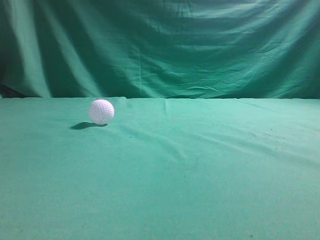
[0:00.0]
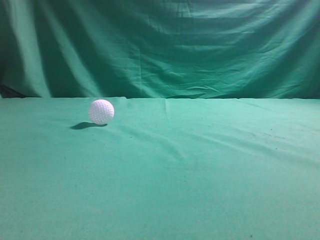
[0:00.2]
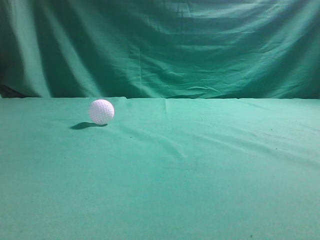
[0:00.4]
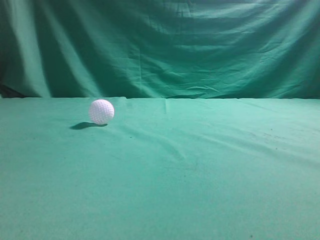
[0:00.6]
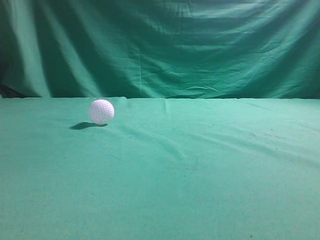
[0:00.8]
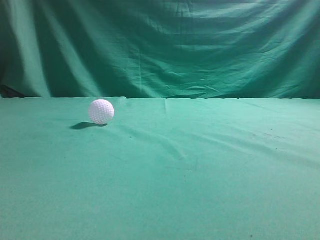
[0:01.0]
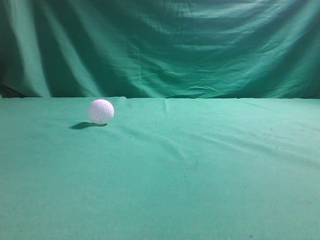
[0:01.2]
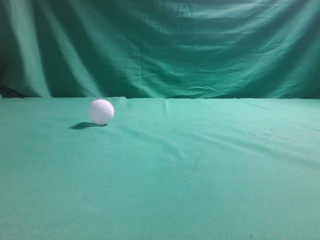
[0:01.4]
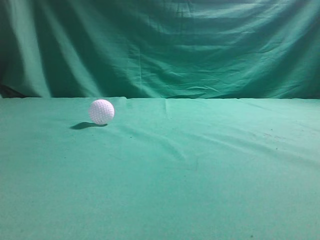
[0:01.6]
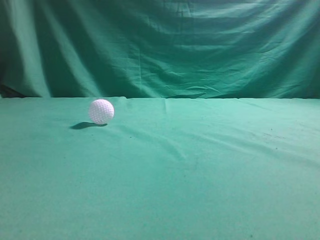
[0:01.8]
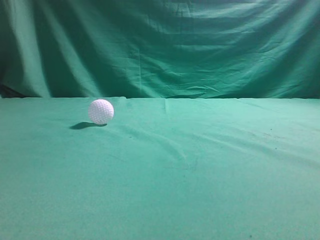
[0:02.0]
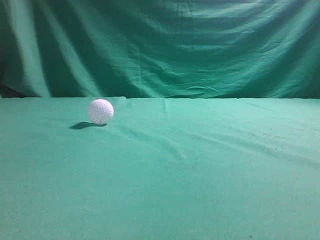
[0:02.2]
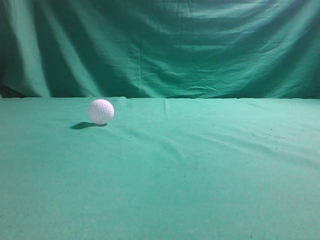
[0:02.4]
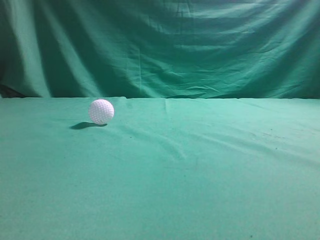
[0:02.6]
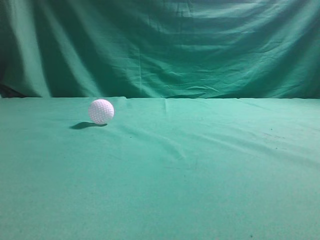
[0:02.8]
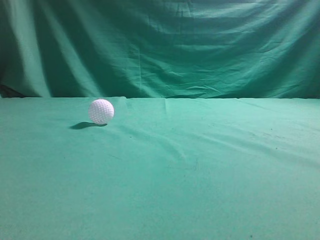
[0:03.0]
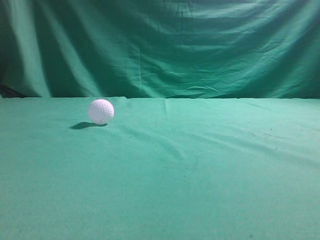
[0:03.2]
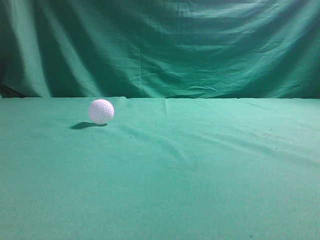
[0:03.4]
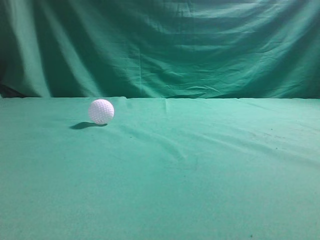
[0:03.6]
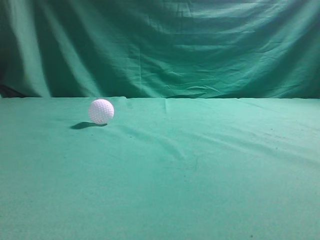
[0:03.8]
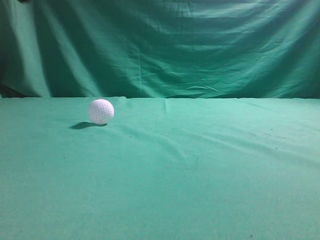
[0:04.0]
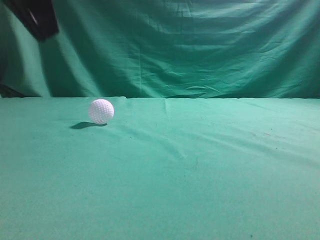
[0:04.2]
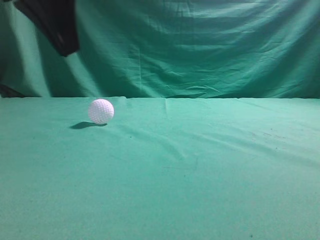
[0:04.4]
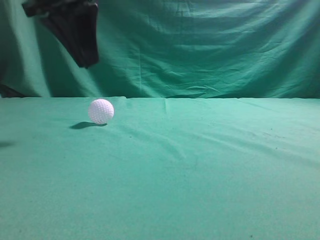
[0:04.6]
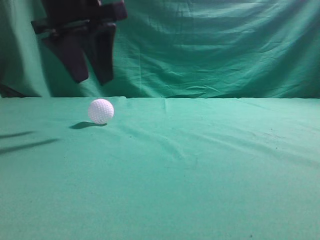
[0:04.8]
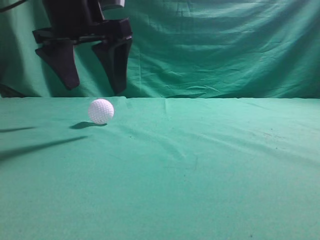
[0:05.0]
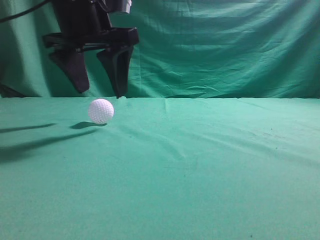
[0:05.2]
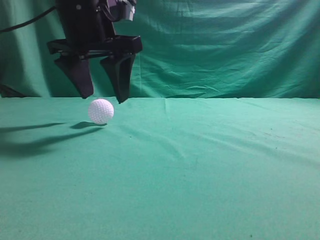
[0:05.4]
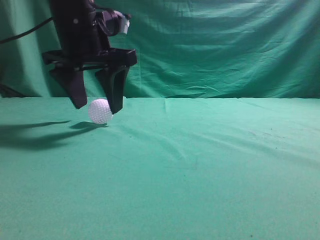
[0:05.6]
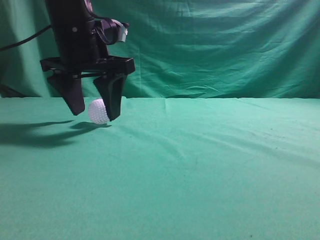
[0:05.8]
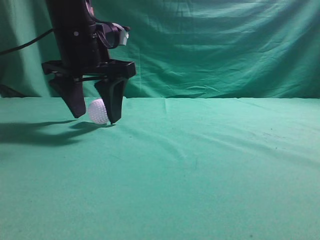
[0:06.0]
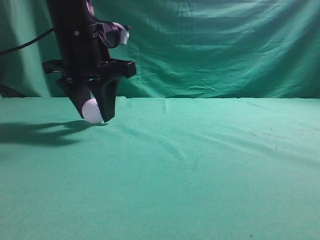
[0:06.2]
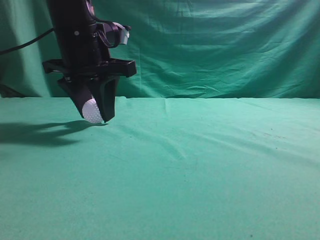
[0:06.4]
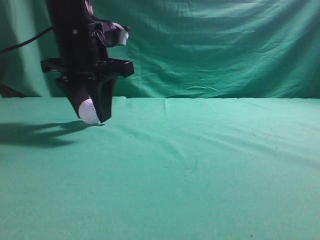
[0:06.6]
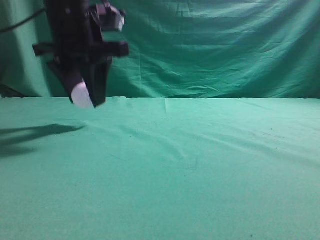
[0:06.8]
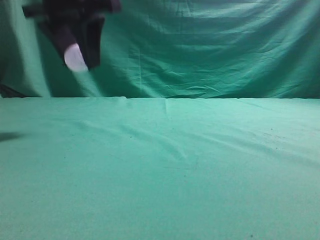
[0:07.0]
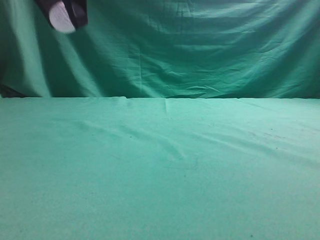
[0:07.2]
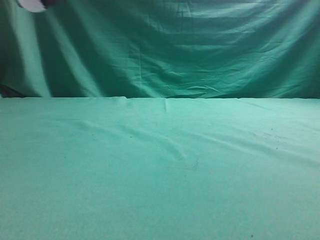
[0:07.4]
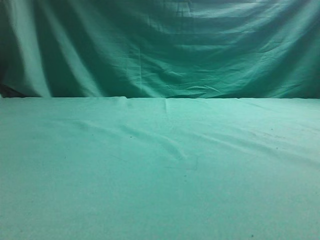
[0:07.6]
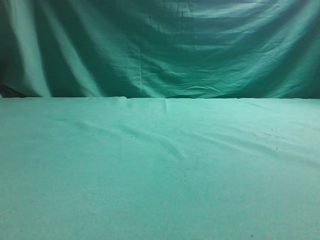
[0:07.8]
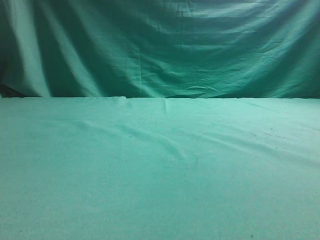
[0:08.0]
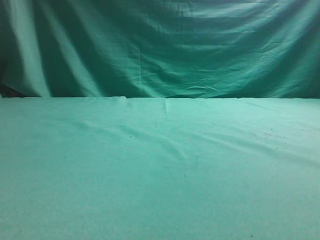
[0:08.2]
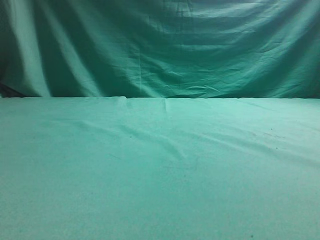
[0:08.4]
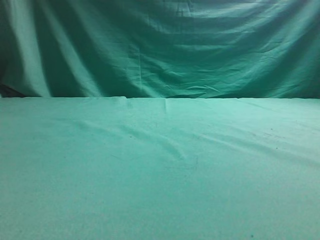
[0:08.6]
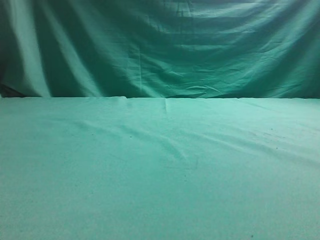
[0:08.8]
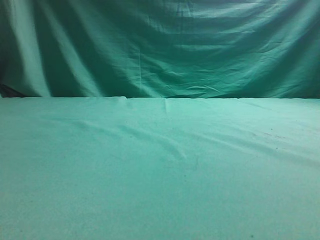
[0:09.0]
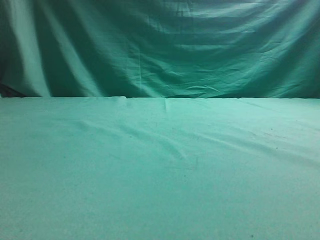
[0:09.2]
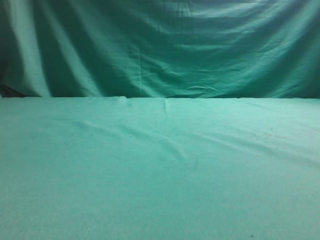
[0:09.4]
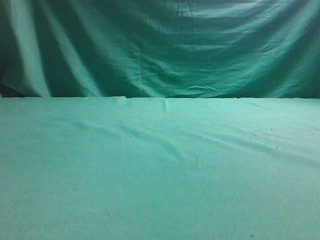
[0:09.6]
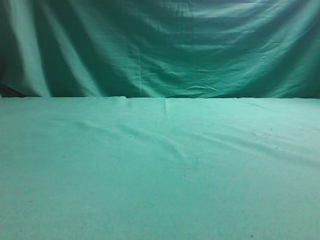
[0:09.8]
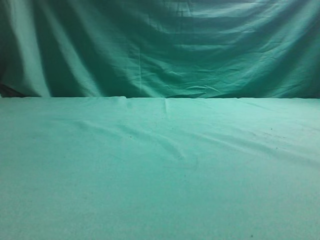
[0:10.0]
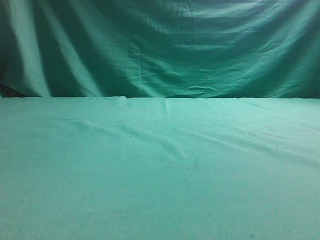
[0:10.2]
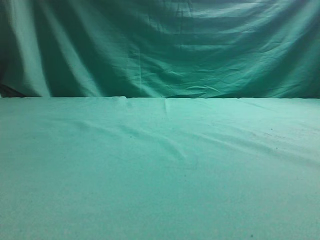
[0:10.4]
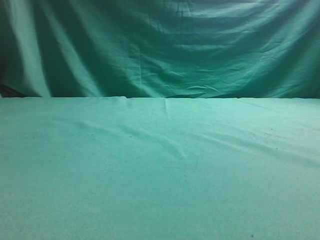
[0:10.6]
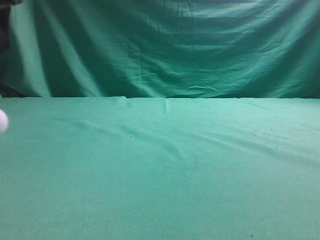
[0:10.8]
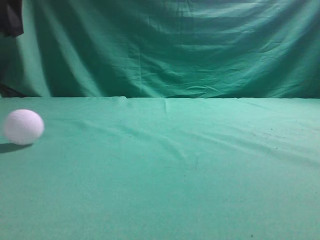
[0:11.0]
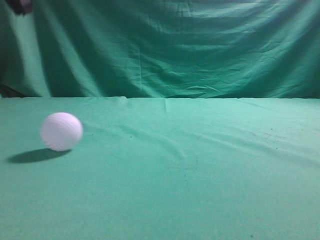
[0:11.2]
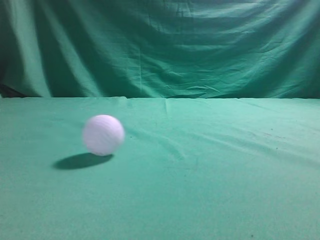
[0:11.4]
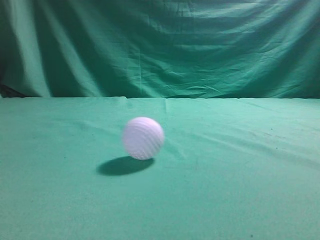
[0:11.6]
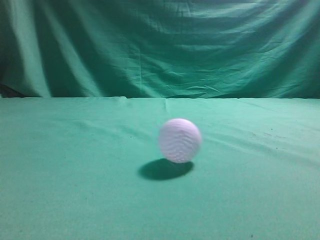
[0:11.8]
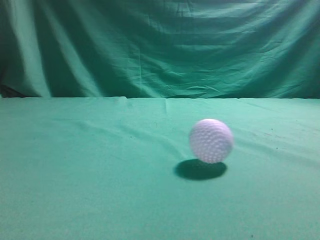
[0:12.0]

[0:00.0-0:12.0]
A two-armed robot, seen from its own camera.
Task of the whole recording: pick up the ball and place it on the plate, then pick up the ball from the plate and put it in the center of the table.
Step, 0:00.0 to 0:06.8: Grab the spherical object with your left arm.
Step, 0:07.2 to 0:10.0: Place the sphere on the white object.
0:03.0 to 0:04.4: The left gripper shifts approximately 25 cm forward and to the right.
0:04.4 to 0:06.0: The left gripper shifts approximately 15 cm forward and downward, and opens.
0:06.0 to 0:07.6: The left gripper heads upward, backward and to the left, covering roughly 20 cm, and closes up.
0:10.4 to 0:12.0: The left gripper travels upward, to the right and backward by roughly 25 cm, and closes its fingers.

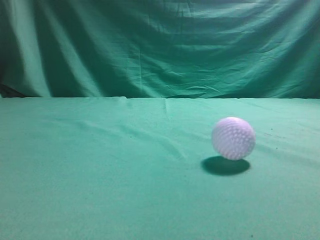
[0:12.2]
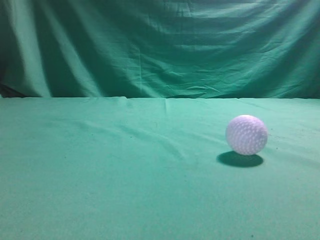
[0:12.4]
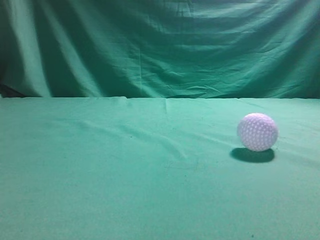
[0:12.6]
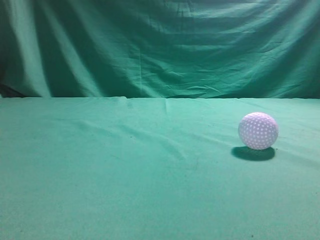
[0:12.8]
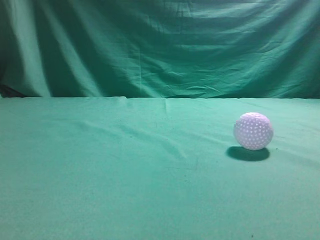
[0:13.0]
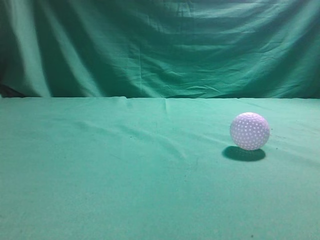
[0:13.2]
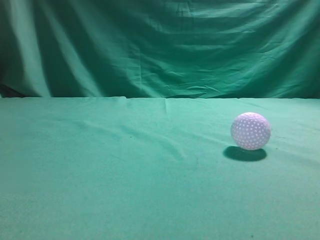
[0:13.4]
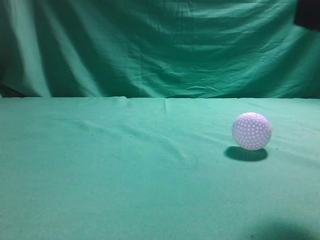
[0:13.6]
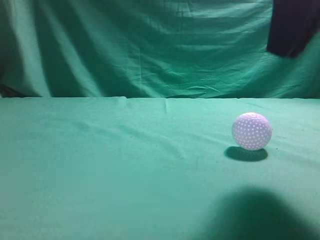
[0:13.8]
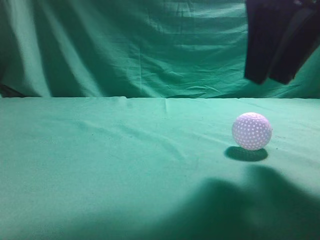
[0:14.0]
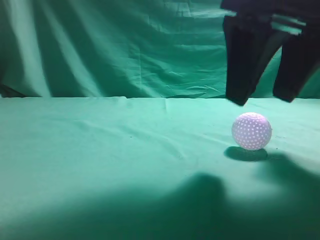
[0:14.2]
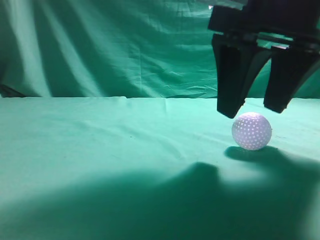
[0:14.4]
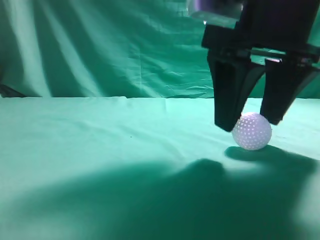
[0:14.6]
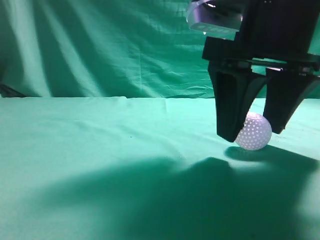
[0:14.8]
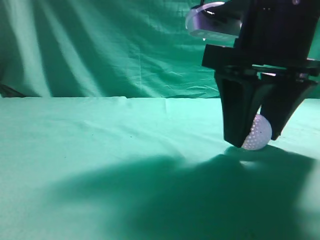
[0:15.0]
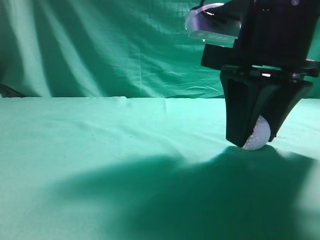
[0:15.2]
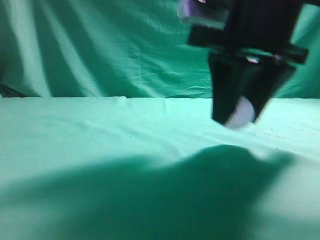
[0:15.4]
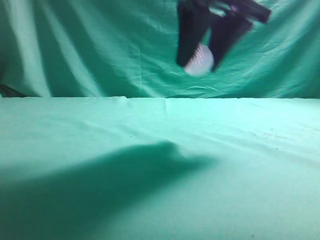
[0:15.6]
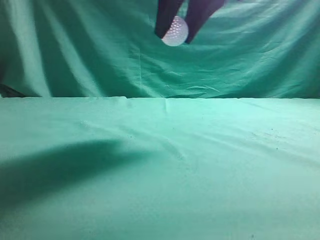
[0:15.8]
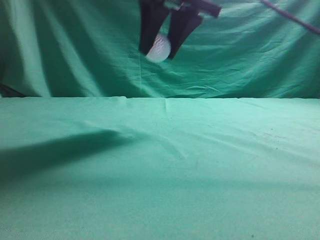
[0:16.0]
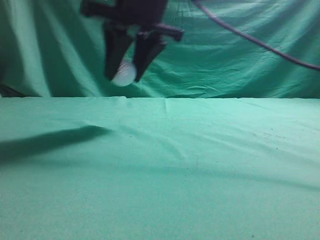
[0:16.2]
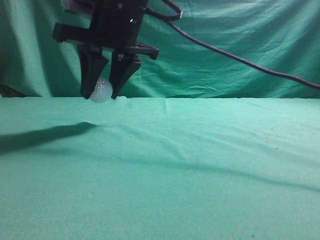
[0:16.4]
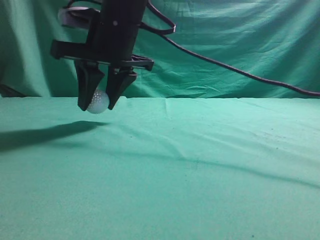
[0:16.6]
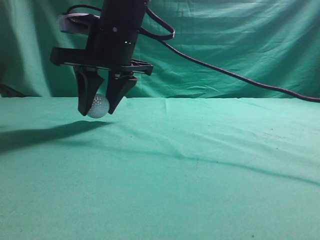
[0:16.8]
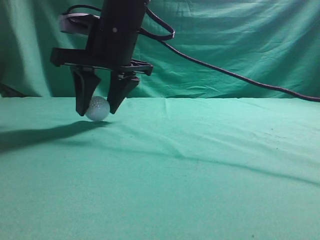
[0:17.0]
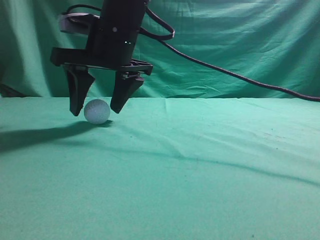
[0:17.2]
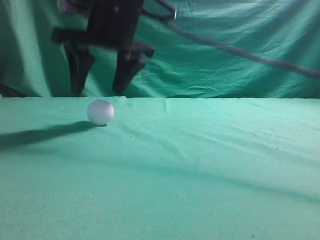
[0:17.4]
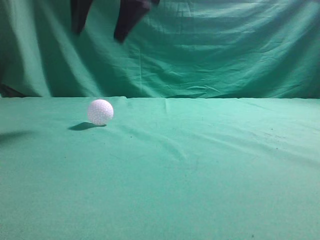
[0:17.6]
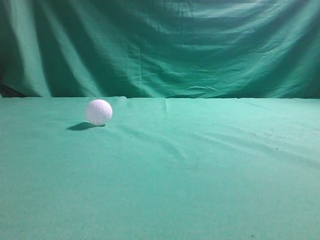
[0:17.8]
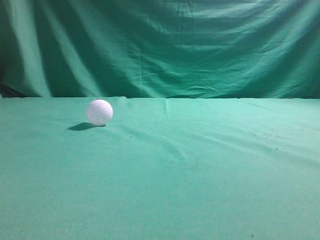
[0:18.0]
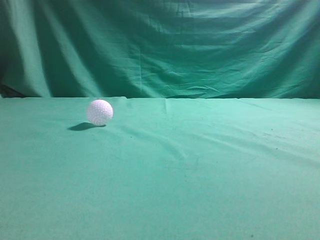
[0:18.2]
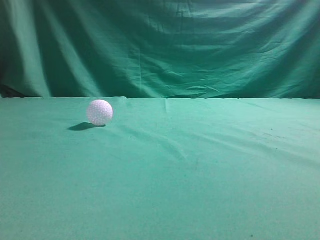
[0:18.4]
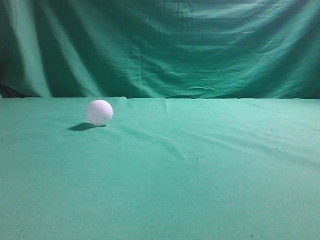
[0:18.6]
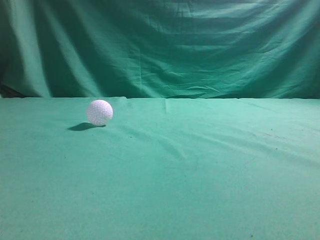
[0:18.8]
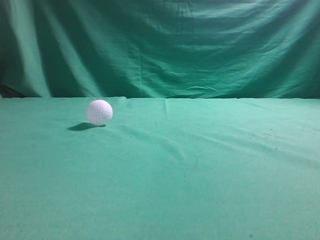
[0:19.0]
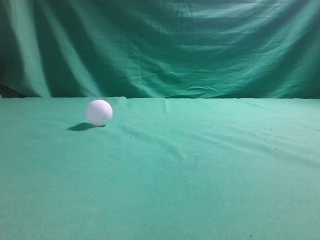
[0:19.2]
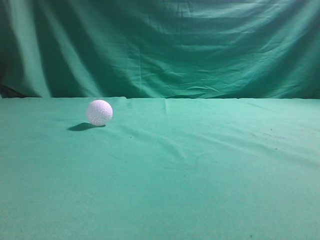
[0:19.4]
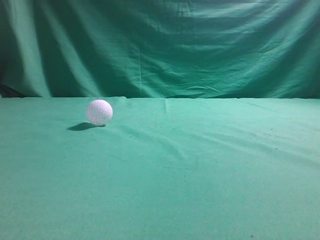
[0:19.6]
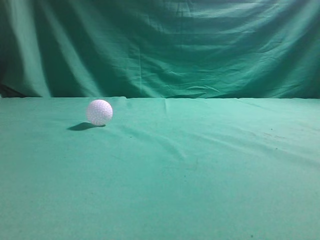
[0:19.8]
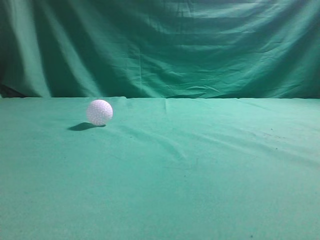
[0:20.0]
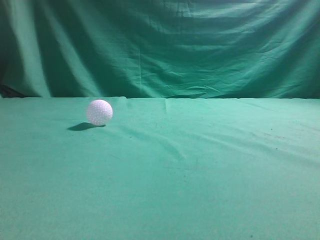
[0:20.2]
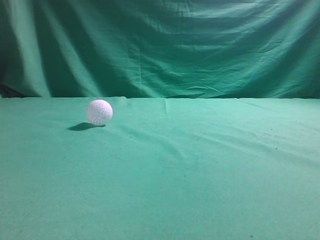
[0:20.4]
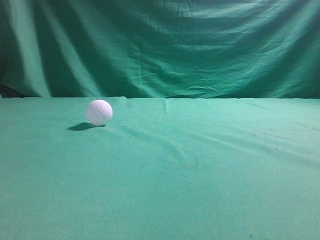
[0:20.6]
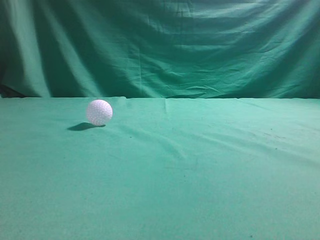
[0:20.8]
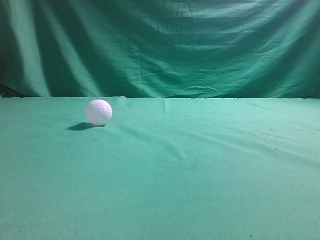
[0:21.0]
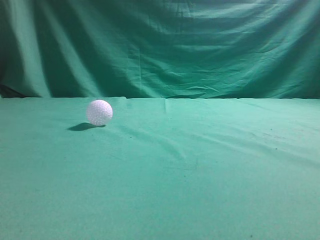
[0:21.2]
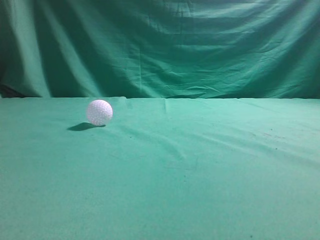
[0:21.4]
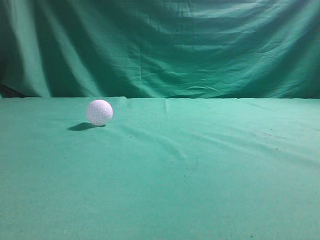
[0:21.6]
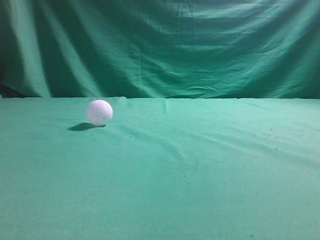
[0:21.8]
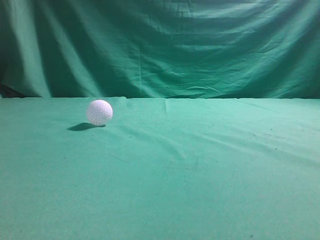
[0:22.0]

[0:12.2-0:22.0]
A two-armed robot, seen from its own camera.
Task of the whole recording: pick up the ball and place it on the plate, then pick up the ball from the plate and put it in the center of the table.
Step, 0:12.2 to 0:15.4: Grab the rolling spherical object.
Step, 0:15.6 to 0:17.4: Put the picked-up object on the table.
0:12.2 to 0:13.6: The right gripper moves to the left, roughly 5 cm.
0:13.6 to 0:15.0: The right gripper goes about 15 cm downward, forward and to the left, and opens up.
0:15.0 to 0:16.4: The right gripper heads to the left and forward, covering some 20 cm.
0:16.4 to 0:17.8: The right gripper goes some 15 cm upward, and opens and closes again.
